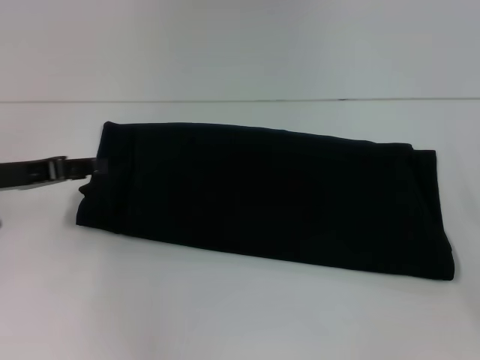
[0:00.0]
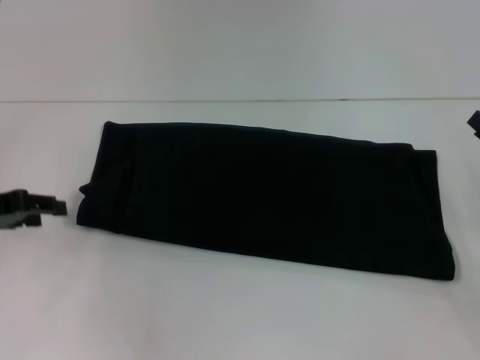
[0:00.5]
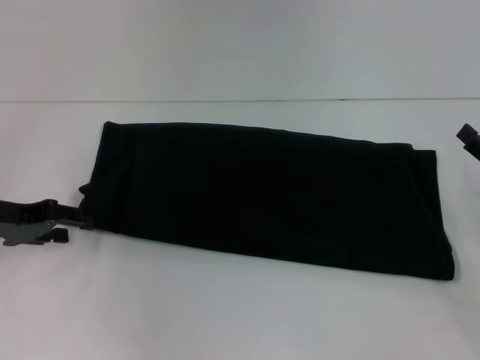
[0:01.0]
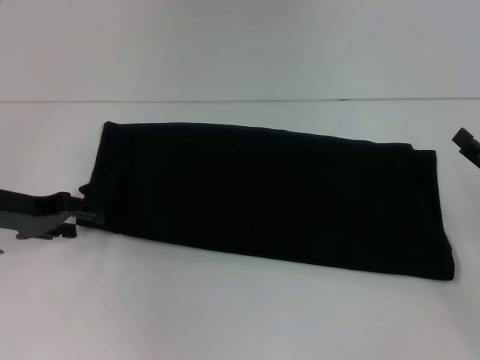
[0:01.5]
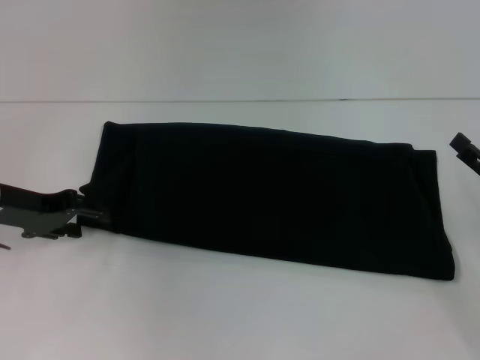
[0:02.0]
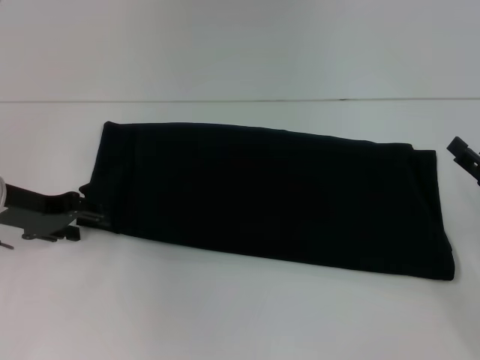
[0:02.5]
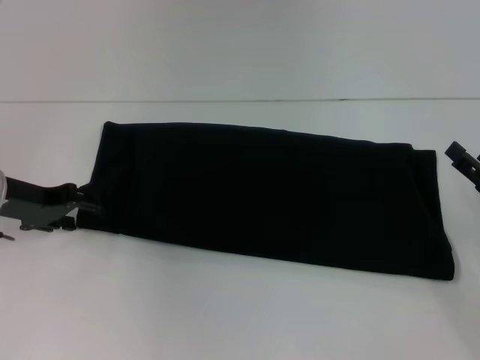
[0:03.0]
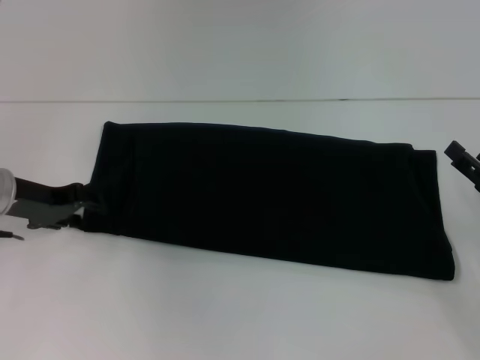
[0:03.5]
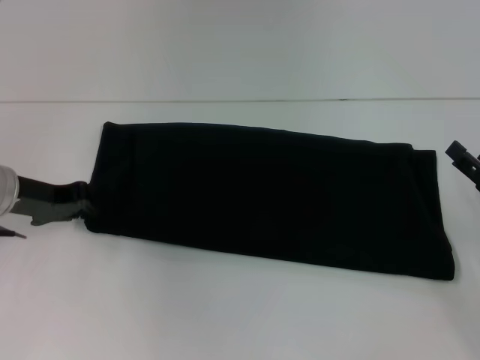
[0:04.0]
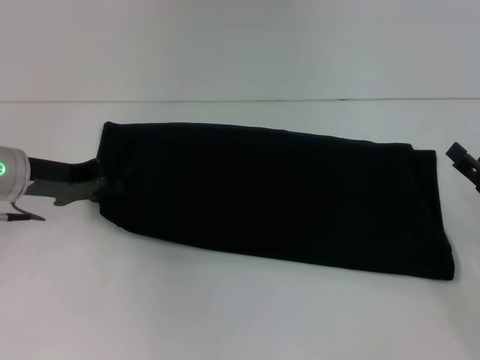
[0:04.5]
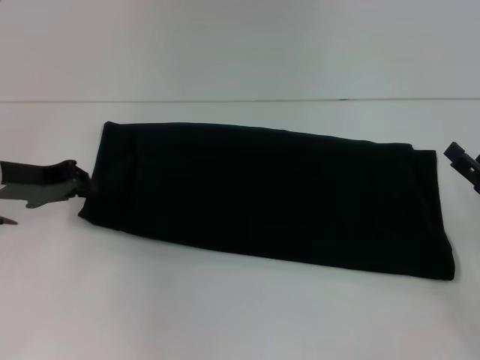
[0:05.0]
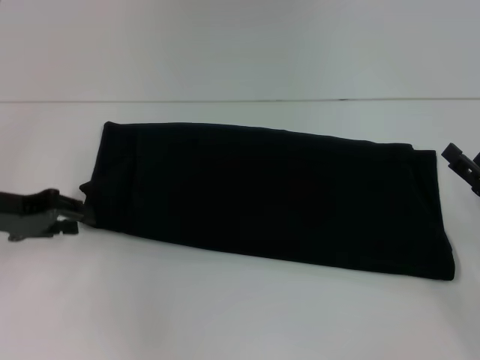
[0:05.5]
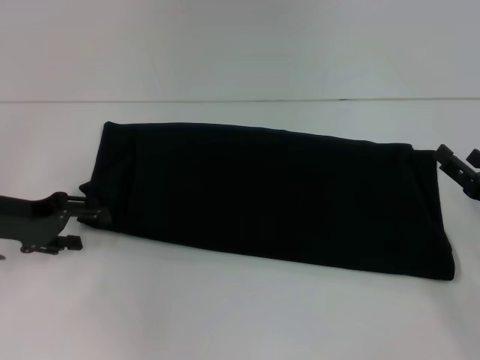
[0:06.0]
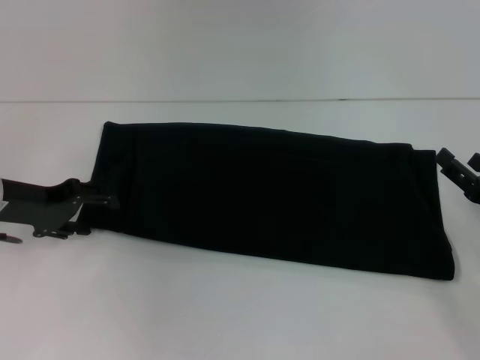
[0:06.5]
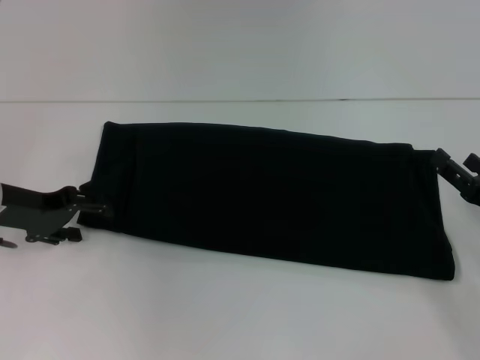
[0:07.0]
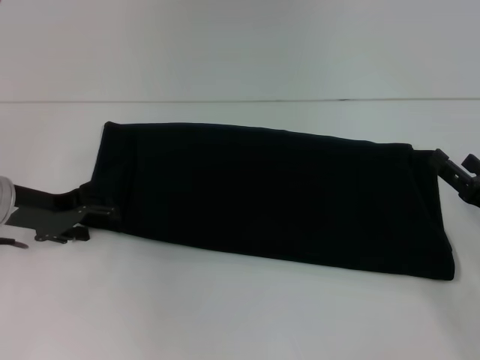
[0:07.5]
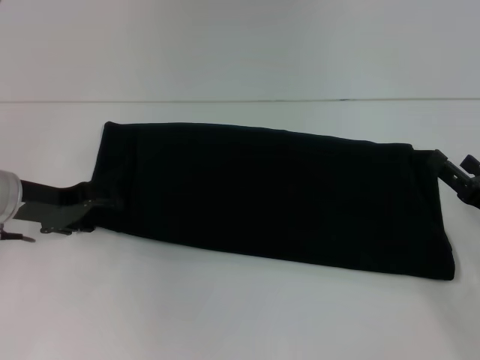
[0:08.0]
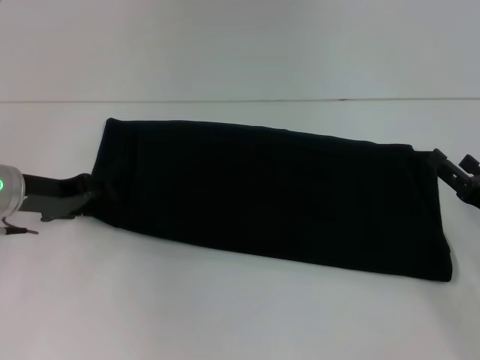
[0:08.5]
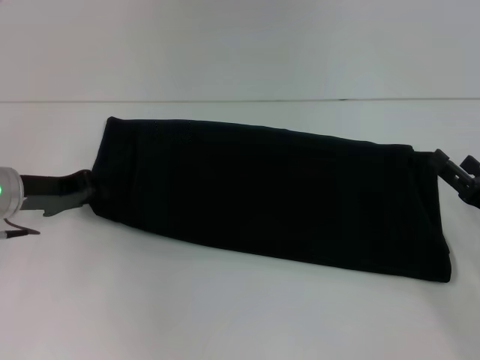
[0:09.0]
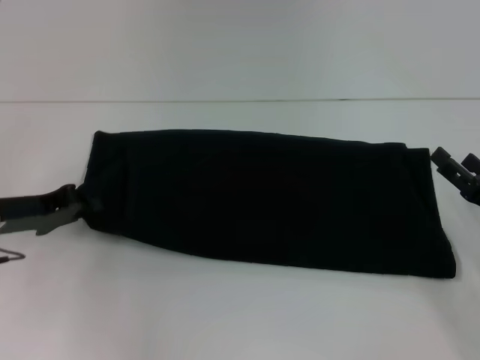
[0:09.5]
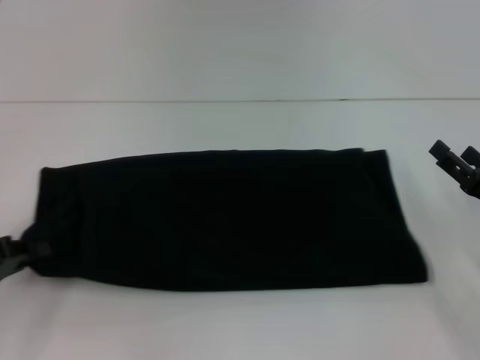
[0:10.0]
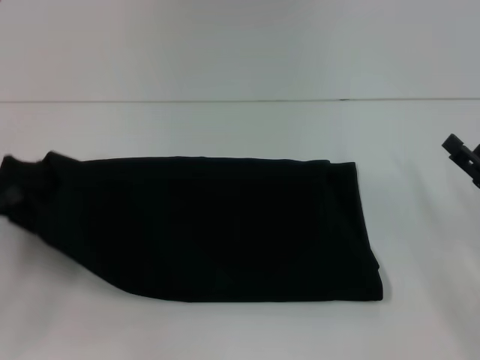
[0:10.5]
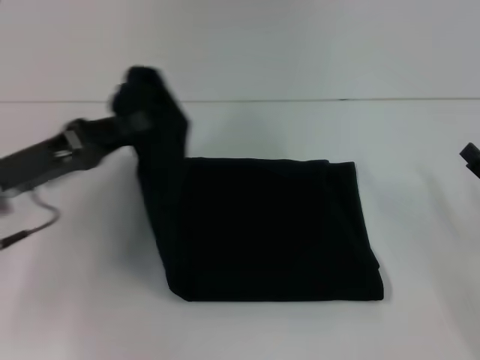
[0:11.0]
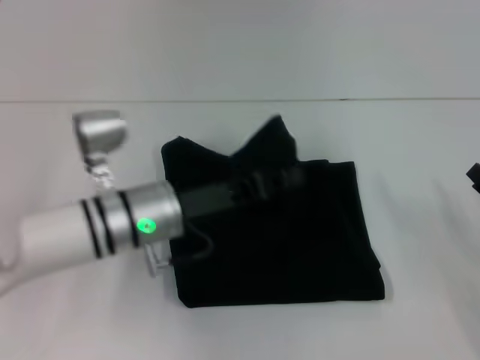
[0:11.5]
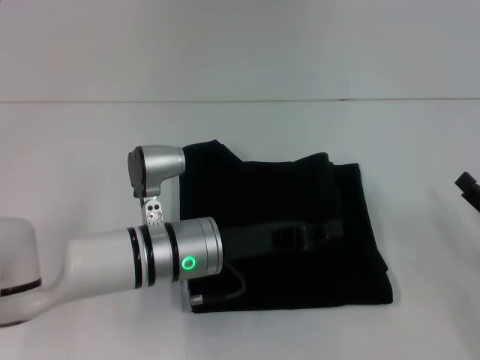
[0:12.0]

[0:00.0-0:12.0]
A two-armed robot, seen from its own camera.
0:02.0 to 0:04.0: The left gripper closes up.
0:04.0 to 0:06.0: The left gripper opens up.
0:06.0 to 0:08.0: The grippers move only a little.
0:08.0 to 0:10.0: The left gripper travels backward and to the left by roughly 15 cm, and closes its fingers.
0:10.0 to 0:12.0: The left gripper is displaced to the right by approximately 25 cm.

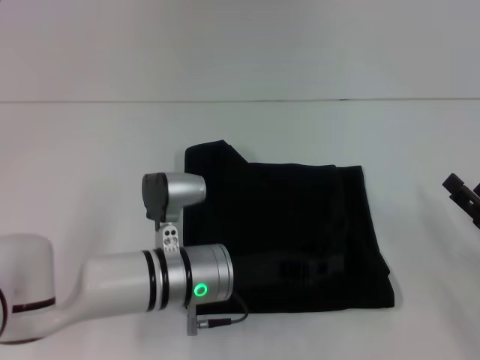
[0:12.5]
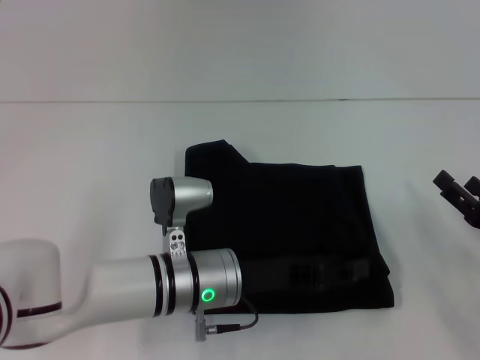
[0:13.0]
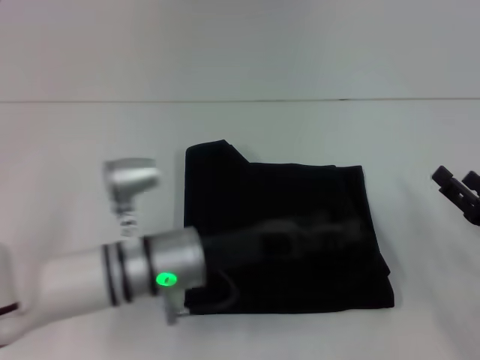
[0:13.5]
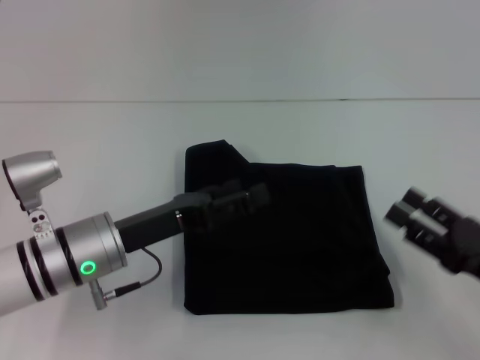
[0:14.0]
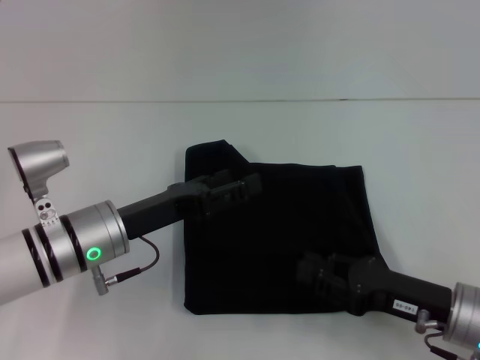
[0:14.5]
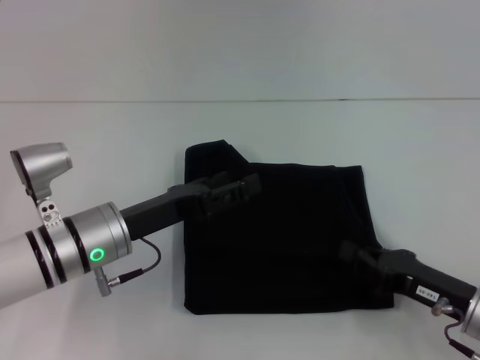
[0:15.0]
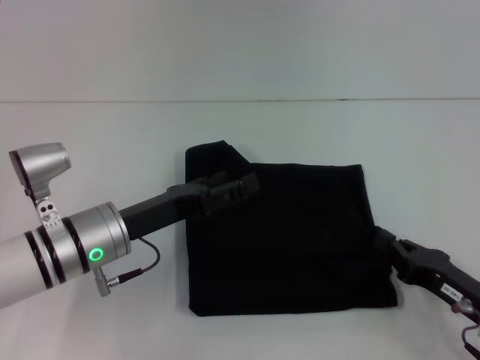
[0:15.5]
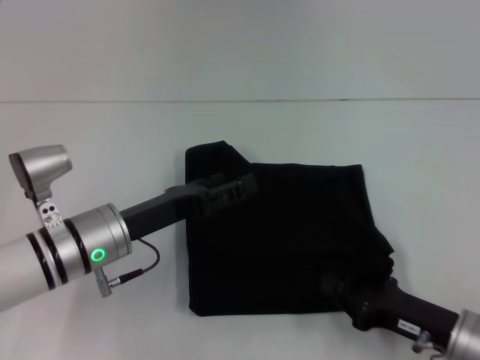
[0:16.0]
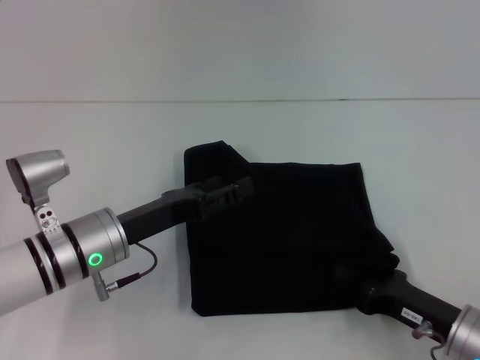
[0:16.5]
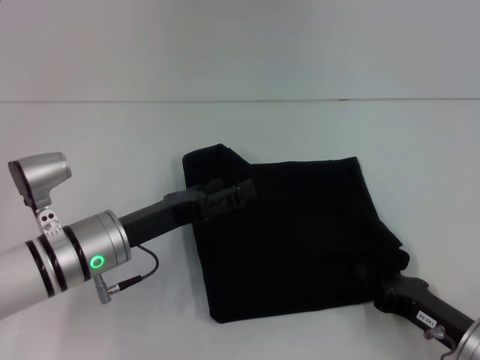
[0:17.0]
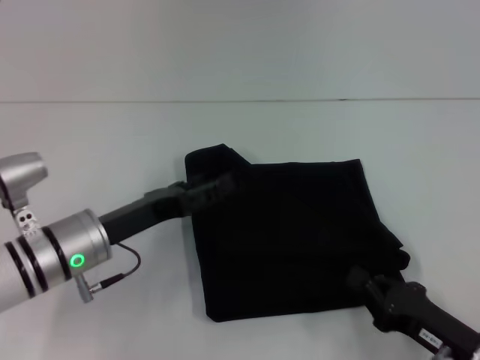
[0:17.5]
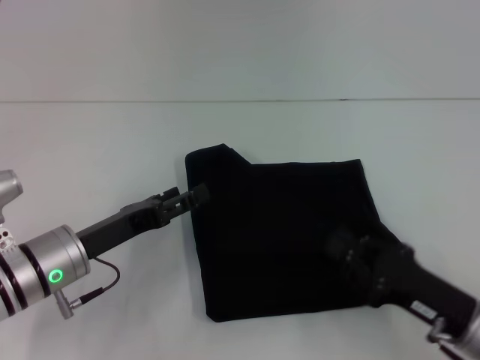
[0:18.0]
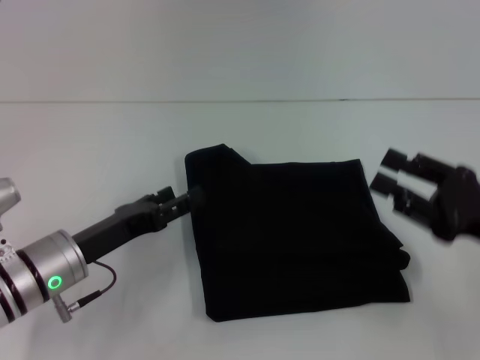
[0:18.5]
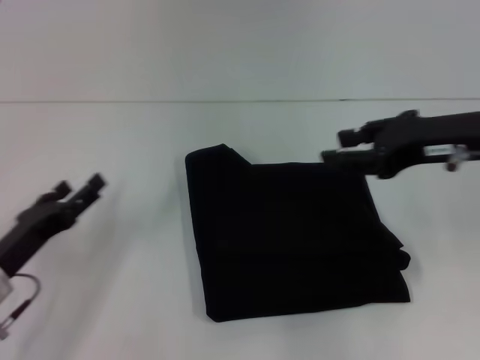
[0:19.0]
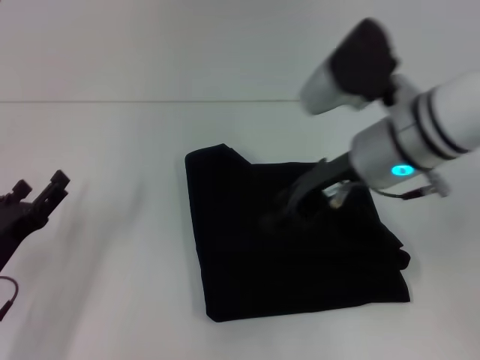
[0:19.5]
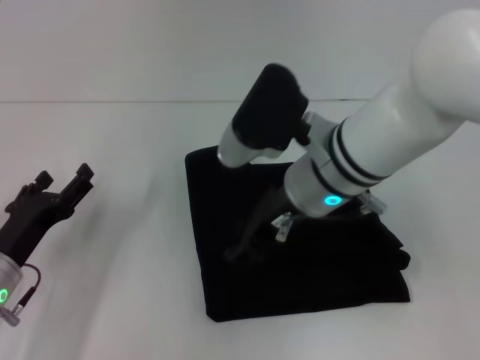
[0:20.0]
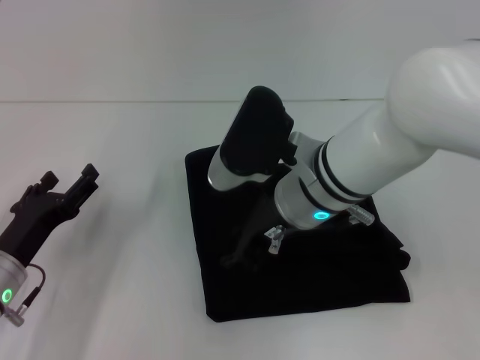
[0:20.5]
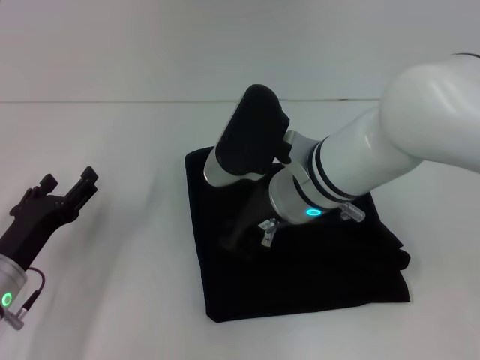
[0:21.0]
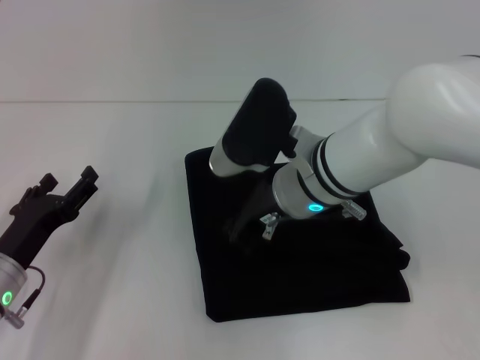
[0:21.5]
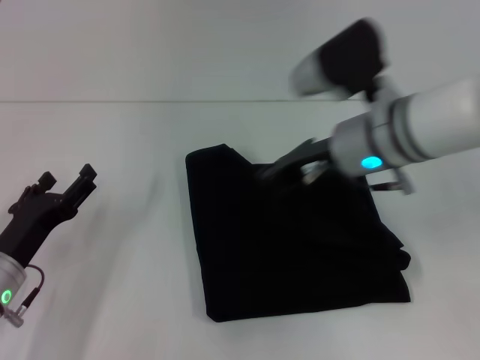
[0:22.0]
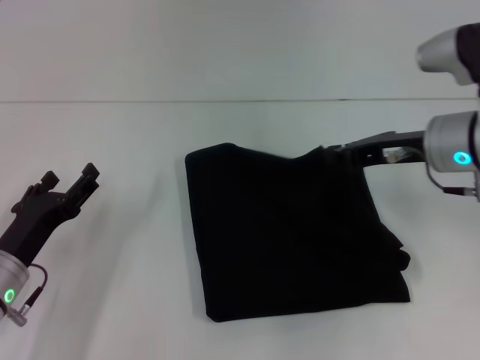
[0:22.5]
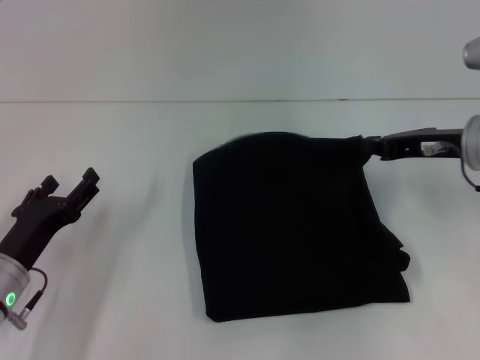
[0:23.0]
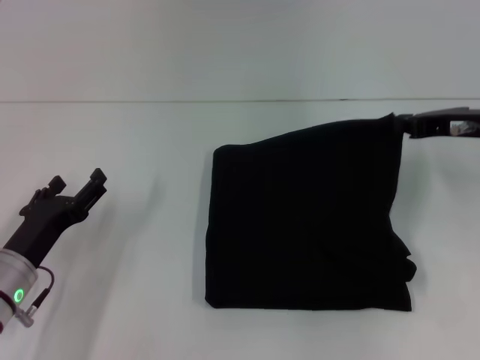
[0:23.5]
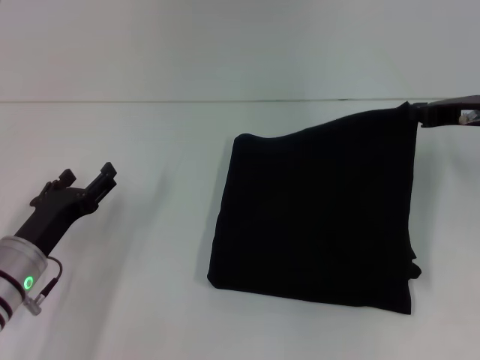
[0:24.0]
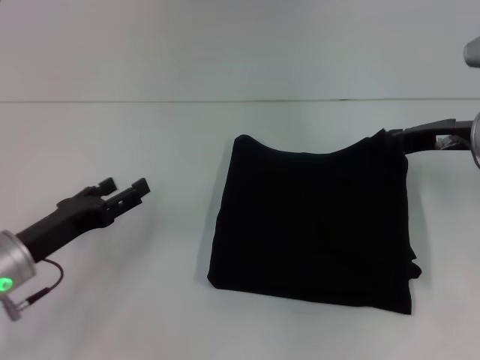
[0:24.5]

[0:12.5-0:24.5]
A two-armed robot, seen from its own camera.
0:12.5 to 0:14.5: The grippers both shift to the left by about 10 cm. The right gripper closes up. Meanwhile the left gripper opens its fingers.
0:14.5 to 0:16.5: The right gripper closes up.
0:16.5 to 0:18.5: The right gripper is displaced upward by some 10 cm, and opens.
0:18.5 to 0:20.5: The right gripper is displaced to the left by about 25 cm.
0:20.5 to 0:22.5: The right gripper goes roughly 15 cm to the right, and closes up.
0:22.5 to 0:24.5: The right gripper shifts by roughly 5 cm.

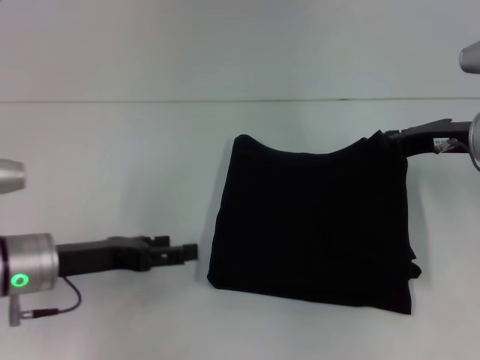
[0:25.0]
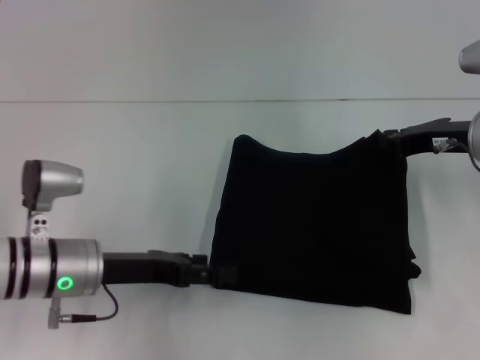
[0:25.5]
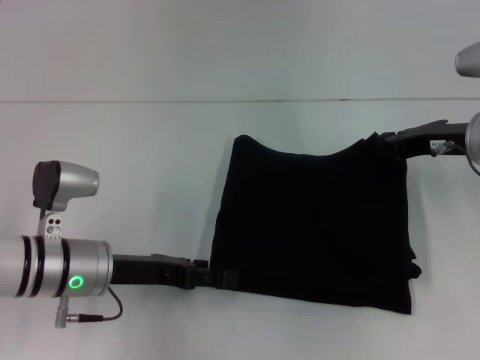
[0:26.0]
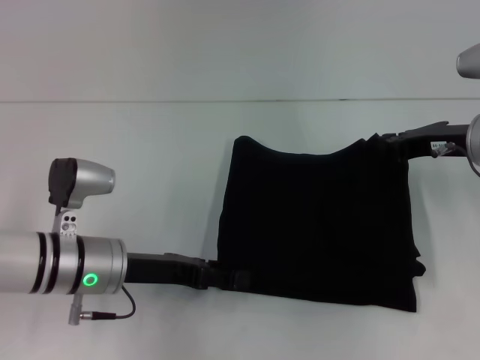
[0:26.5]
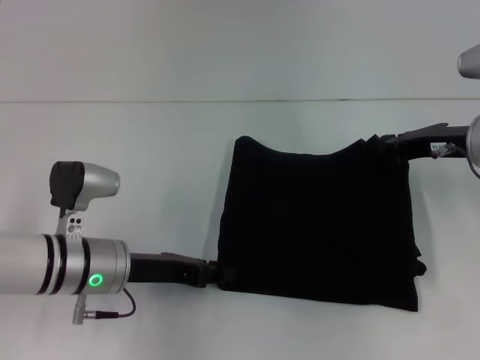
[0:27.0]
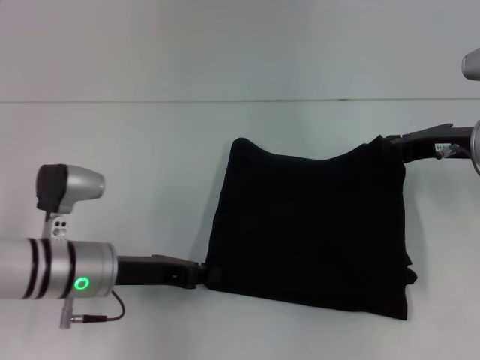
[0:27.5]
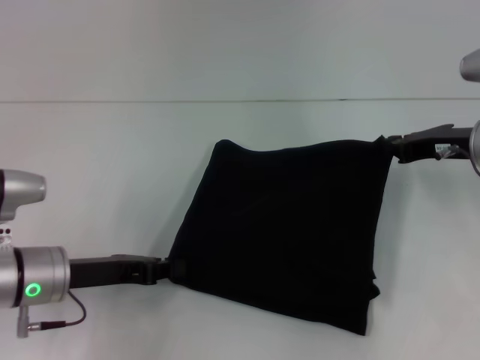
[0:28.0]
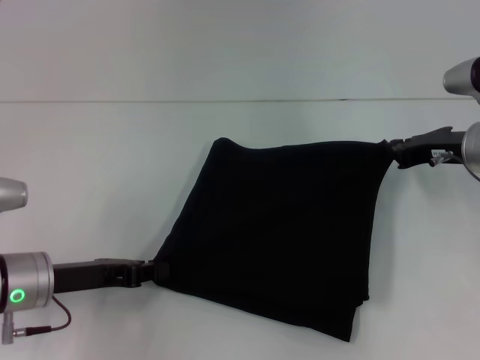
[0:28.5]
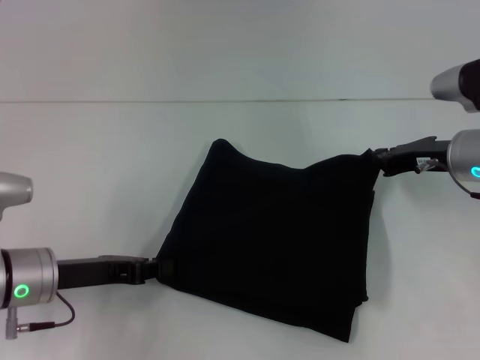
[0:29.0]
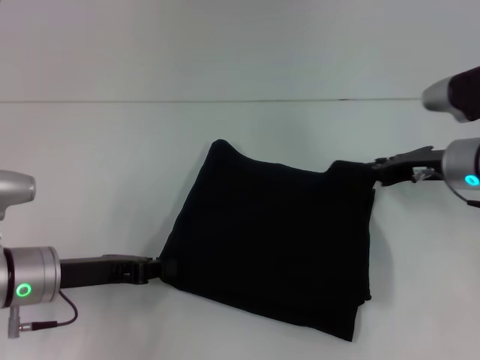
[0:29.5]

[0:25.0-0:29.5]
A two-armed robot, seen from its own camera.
0:25.0 to 0:27.0: The left gripper moves to the right, some 5 cm, and closes up.
0:27.0 to 0:29.5: The left gripper shifts approximately 5 cm to the left, and closes its fingers.
